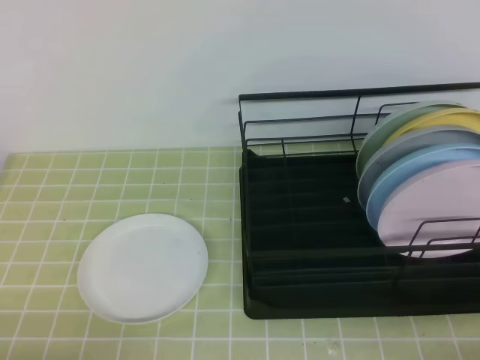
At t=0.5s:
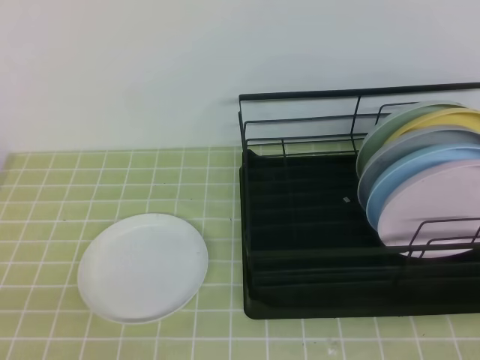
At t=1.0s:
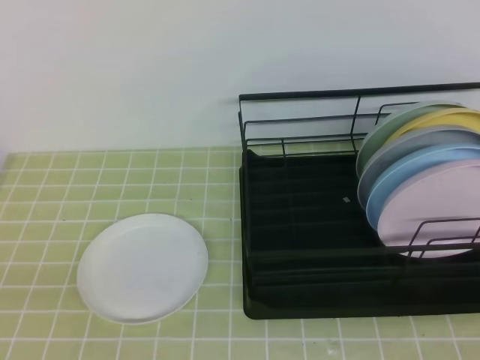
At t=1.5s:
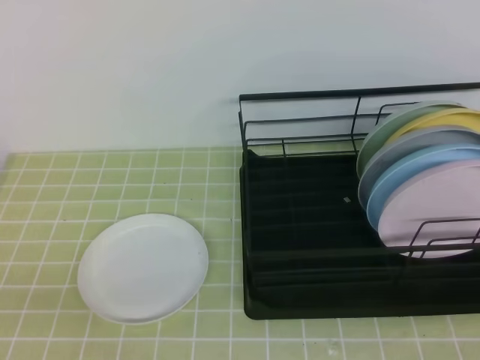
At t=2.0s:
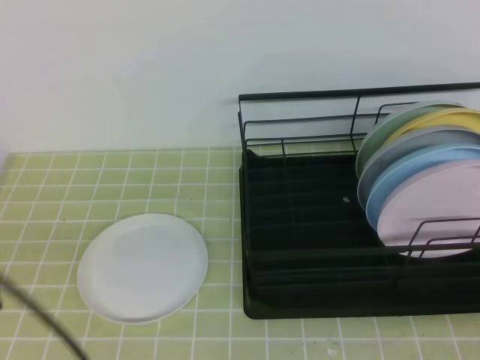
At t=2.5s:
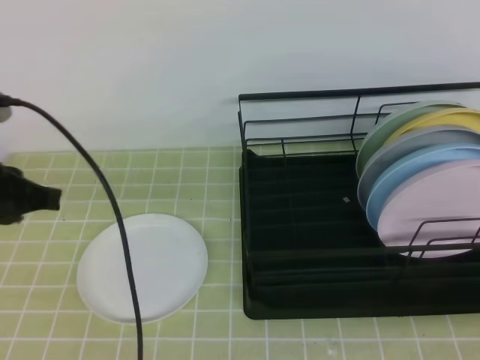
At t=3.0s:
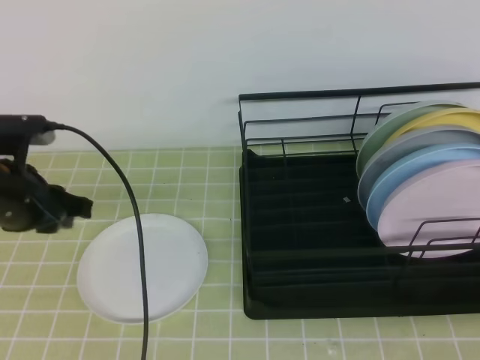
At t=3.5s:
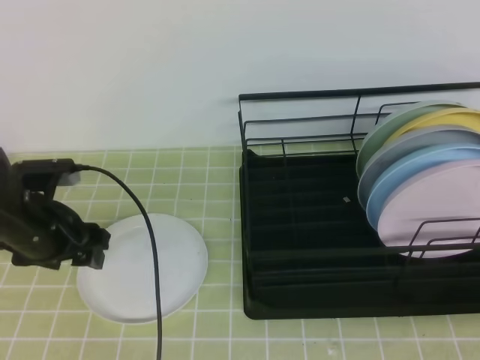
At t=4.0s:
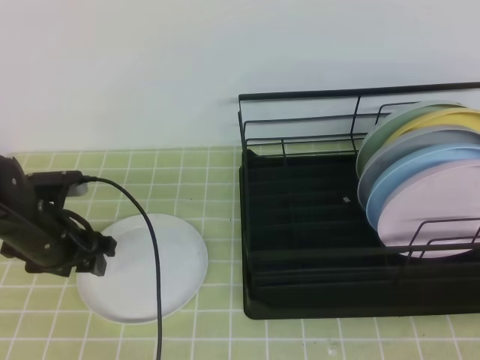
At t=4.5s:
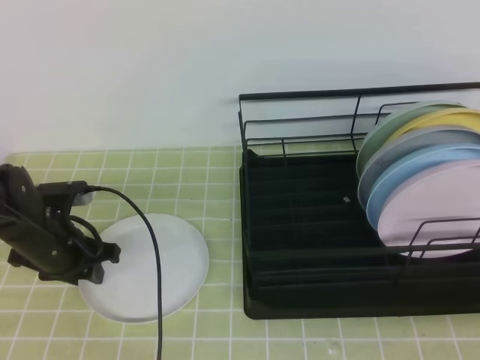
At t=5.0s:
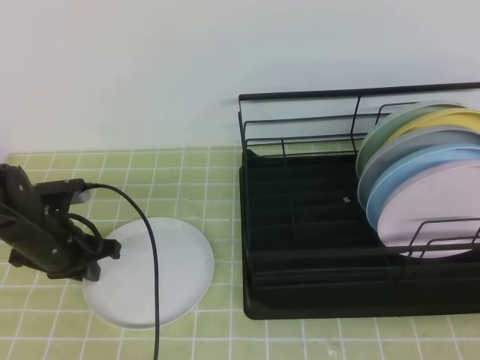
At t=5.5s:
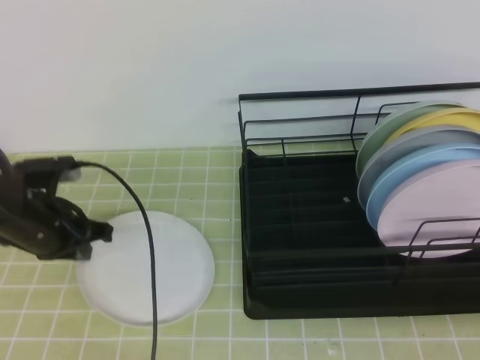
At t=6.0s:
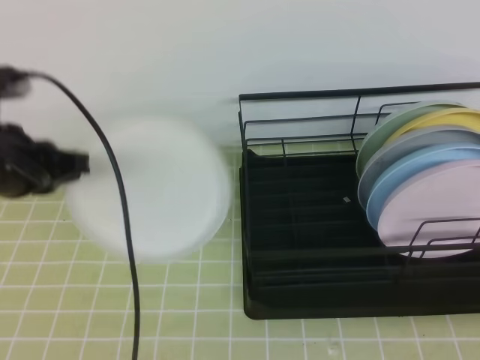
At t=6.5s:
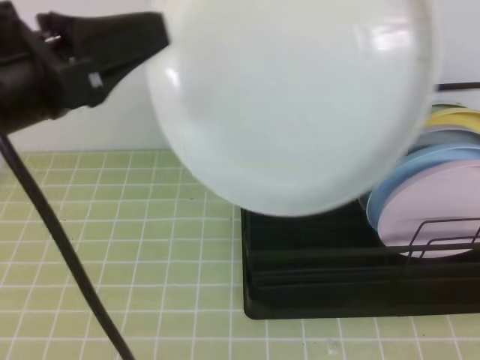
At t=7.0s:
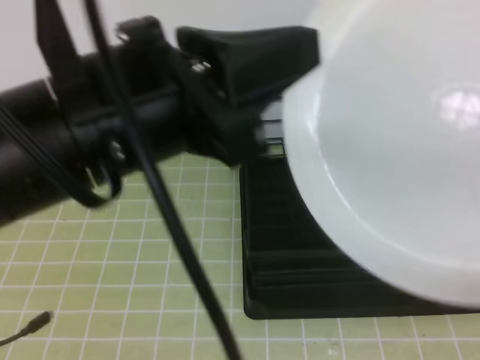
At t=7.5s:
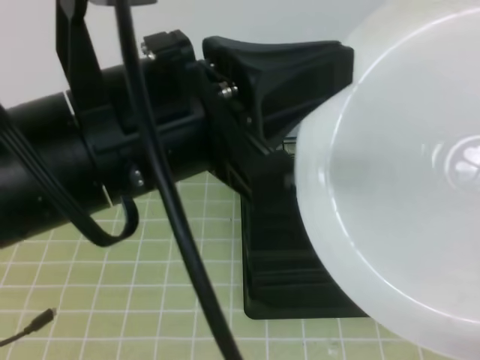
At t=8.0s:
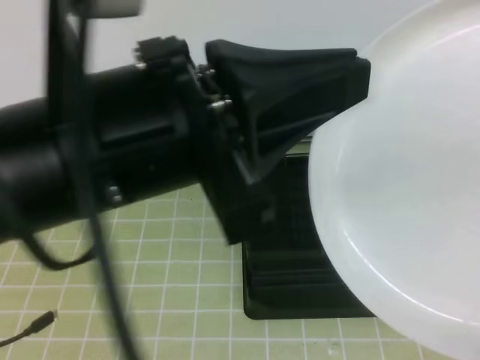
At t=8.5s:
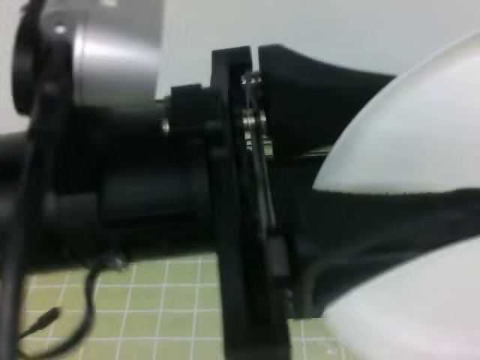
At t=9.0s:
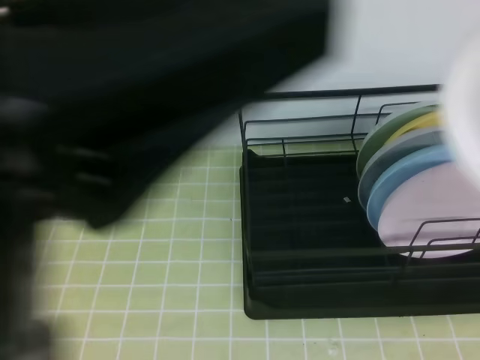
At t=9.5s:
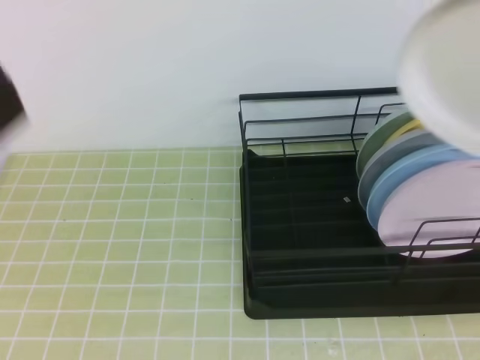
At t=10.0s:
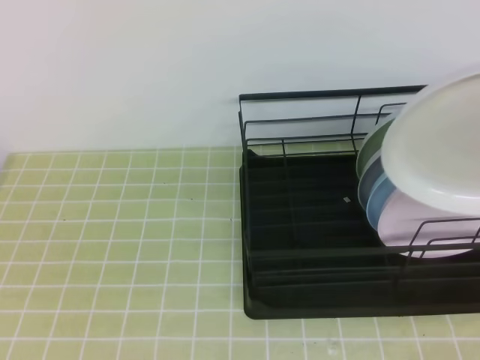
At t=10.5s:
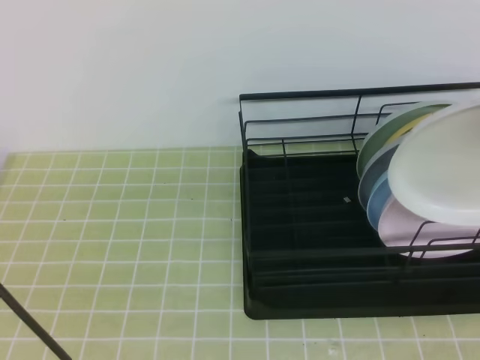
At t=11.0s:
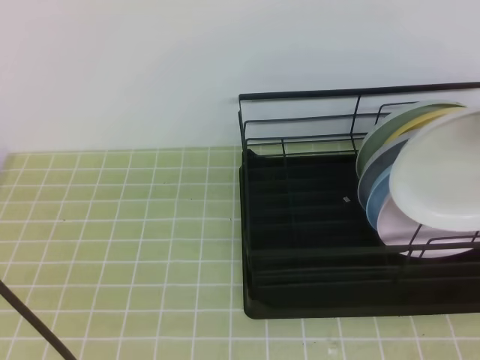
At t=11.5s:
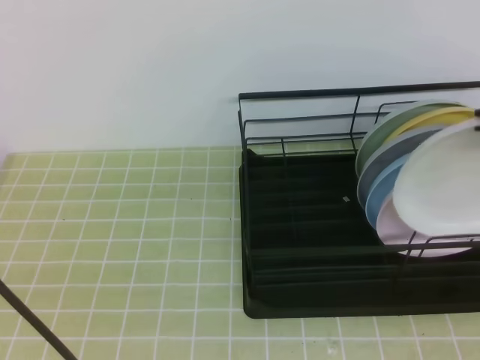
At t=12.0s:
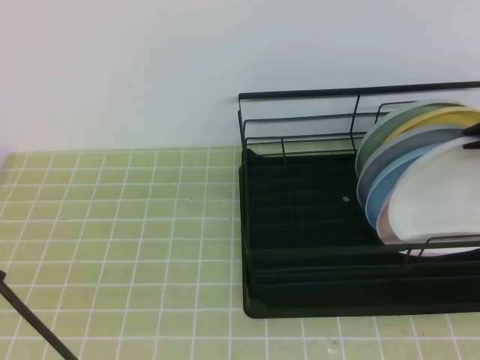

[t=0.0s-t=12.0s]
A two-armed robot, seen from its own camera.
t=0.0s to t=2.0s: The left gripper shifts some 15 cm upward and forward.
t=2.0s to t=4.0s: The left gripper is displaced forward and downward by some 25 cm, and opens its fingers.
t=4.0s to t=6.0s: The left gripper heads upward and backward, covering roughly 15 cm, and closes.
t=6.0s to t=8.0s: The right gripper shifts about 10 cm upward, and opens and closes again; the left gripper shifts about 20 cm to the right, backward and upward.
t=8.0s to t=10.0s: The left gripper goes approximately 15 cm to the left, and opens and closes again; the right gripper goes some 15 cm forward and upward.
t=10.0s to t=12.0s: The right gripper heads forward and downward, covering approximately 15 cm.

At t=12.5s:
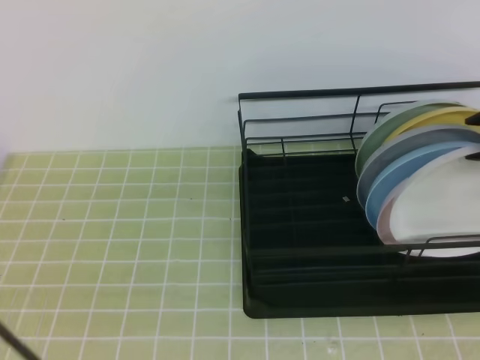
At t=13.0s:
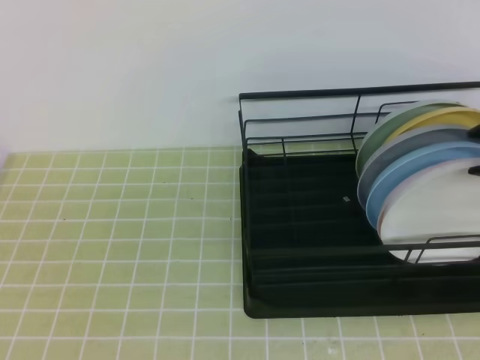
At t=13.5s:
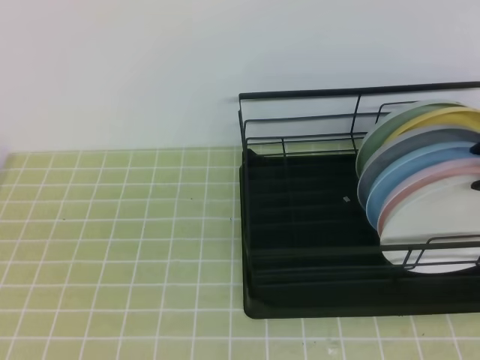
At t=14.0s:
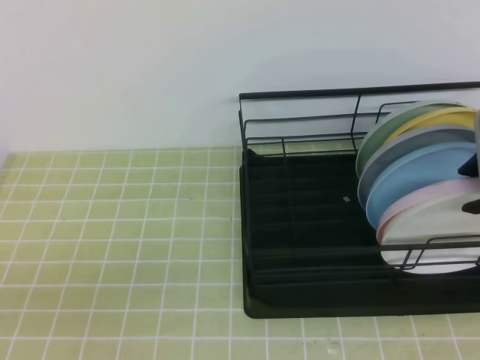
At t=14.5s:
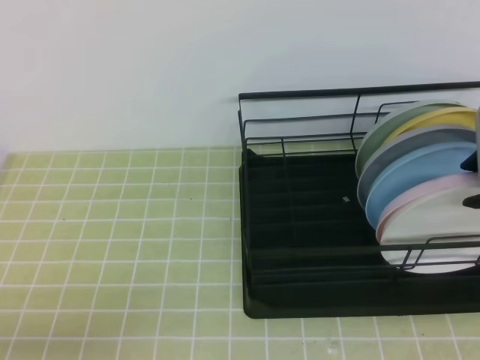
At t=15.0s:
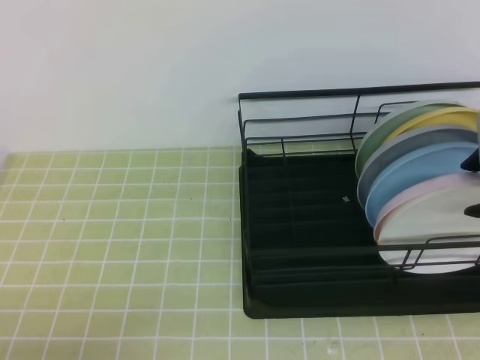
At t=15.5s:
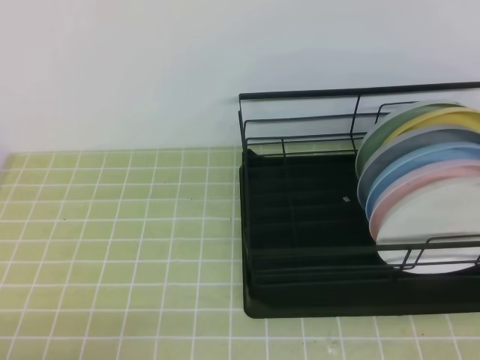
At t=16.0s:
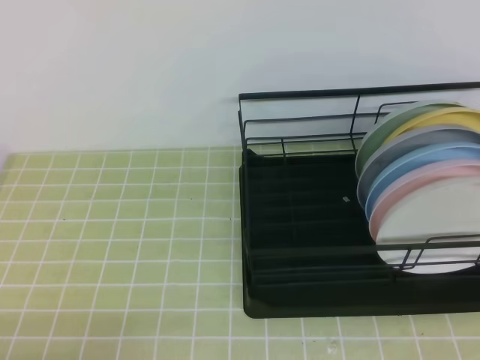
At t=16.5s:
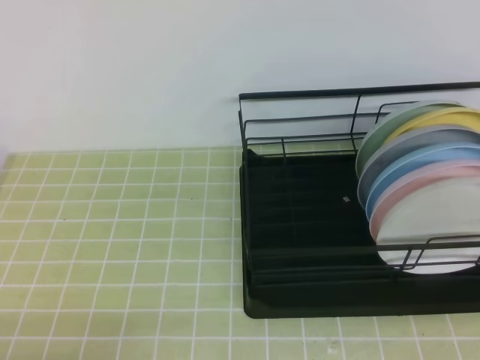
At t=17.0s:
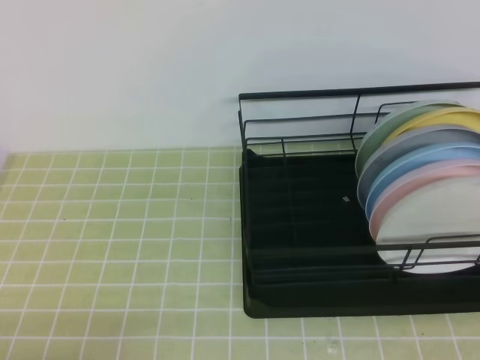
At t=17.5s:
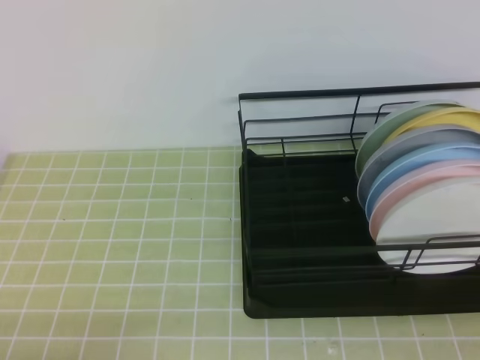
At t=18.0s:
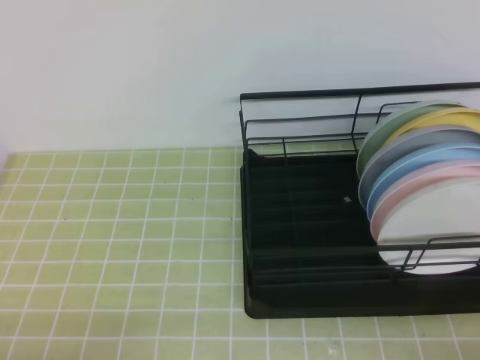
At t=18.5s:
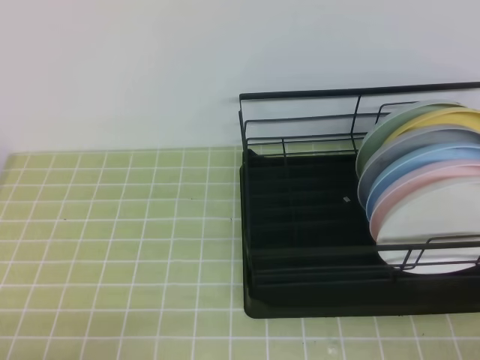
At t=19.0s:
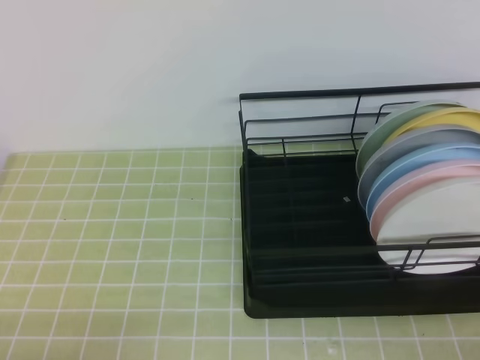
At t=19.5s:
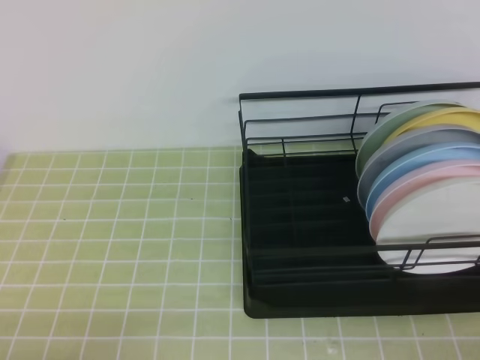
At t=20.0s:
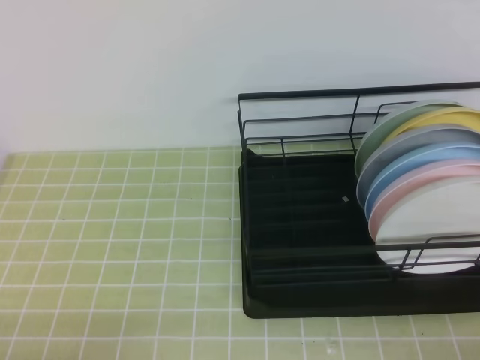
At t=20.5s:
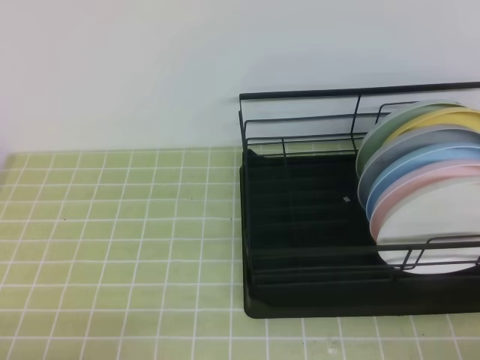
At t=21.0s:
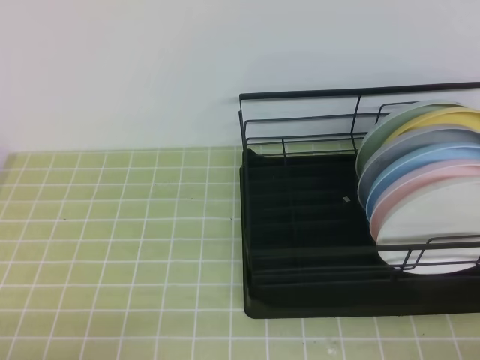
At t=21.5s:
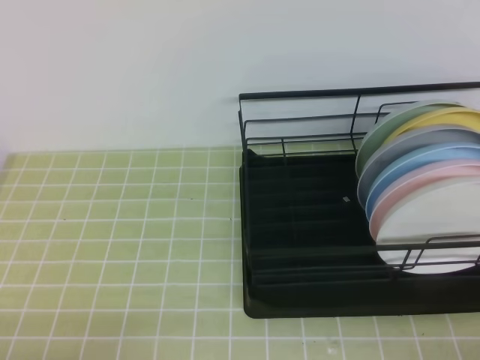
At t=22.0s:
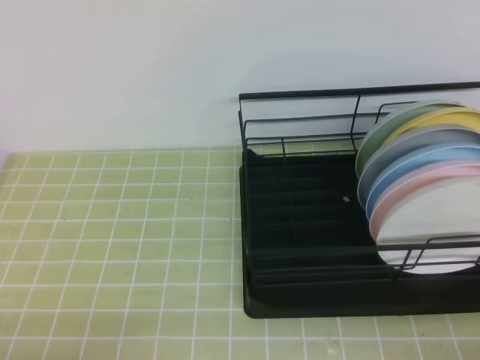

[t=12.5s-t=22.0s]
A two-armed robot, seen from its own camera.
t=14.5s to t=16.5s: The right gripper travels backward and upward by roughly 30 cm, and closes its fingers.
t=16.5s to t=18.0s: The right gripper is displaced downward by some 30 cm.
t=18.0s to t=20.0s: There are only small adjustments of the grippers.
t=20.0s to t=22.0s: Both grippers stay put.
